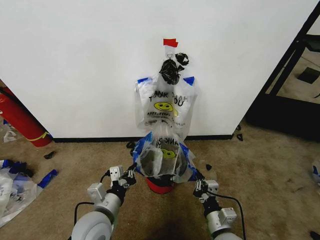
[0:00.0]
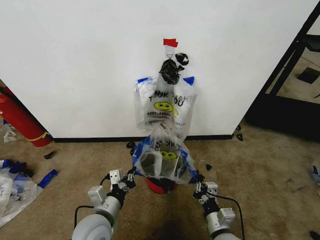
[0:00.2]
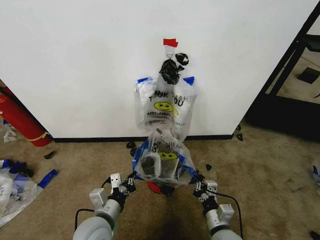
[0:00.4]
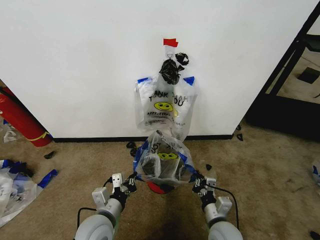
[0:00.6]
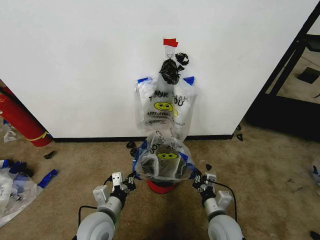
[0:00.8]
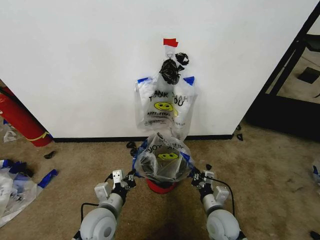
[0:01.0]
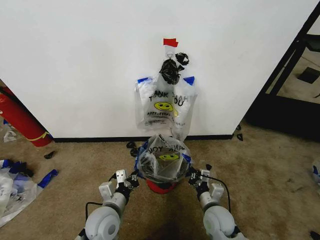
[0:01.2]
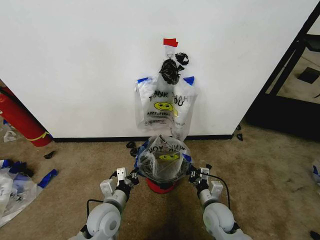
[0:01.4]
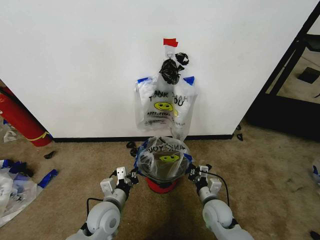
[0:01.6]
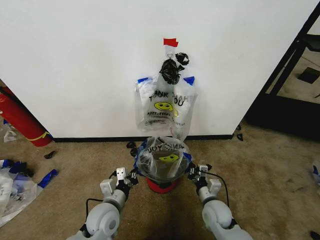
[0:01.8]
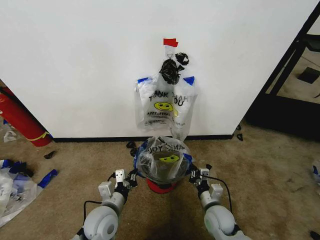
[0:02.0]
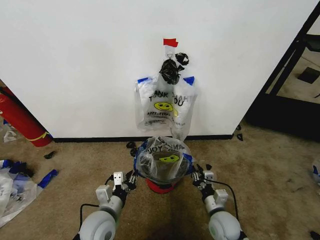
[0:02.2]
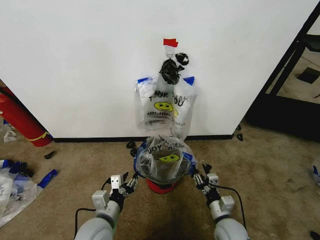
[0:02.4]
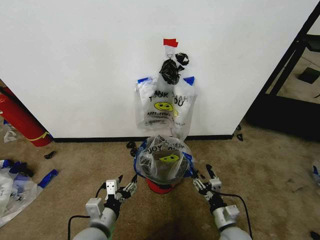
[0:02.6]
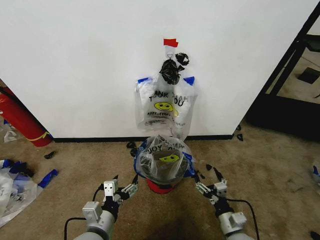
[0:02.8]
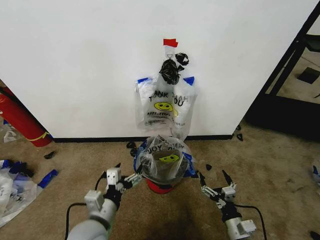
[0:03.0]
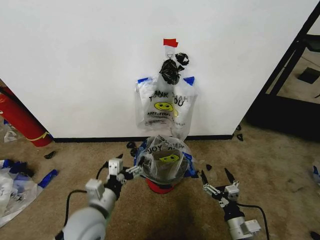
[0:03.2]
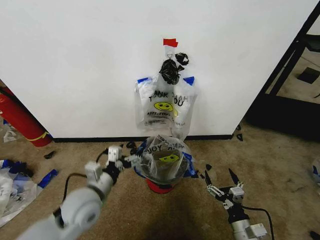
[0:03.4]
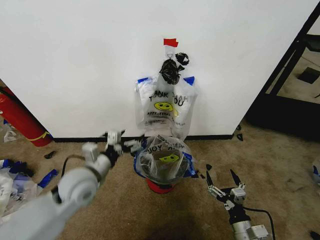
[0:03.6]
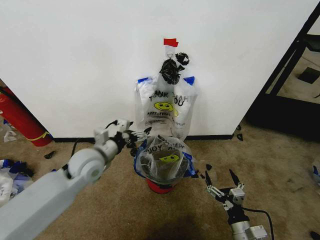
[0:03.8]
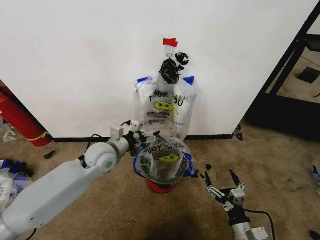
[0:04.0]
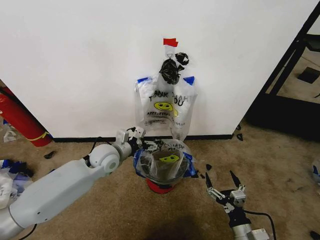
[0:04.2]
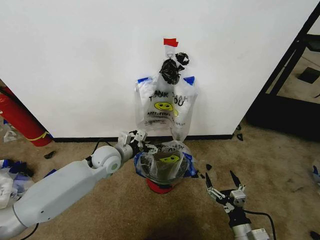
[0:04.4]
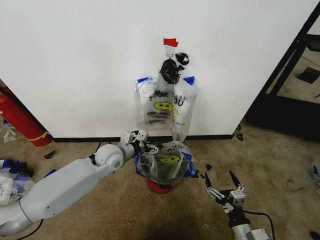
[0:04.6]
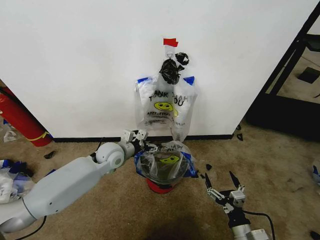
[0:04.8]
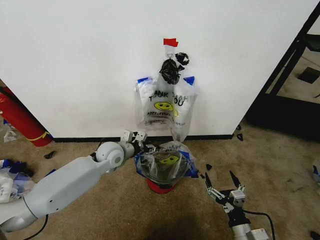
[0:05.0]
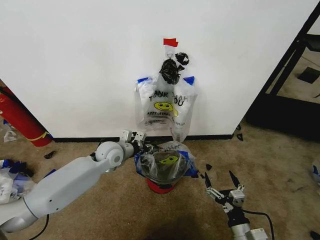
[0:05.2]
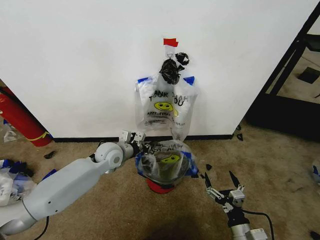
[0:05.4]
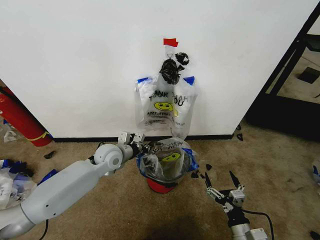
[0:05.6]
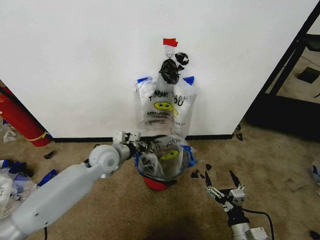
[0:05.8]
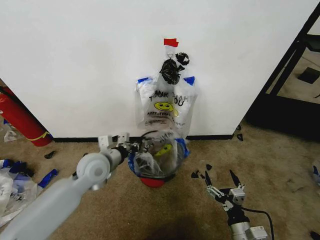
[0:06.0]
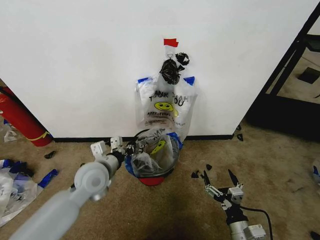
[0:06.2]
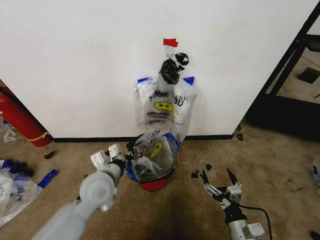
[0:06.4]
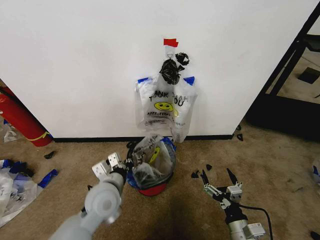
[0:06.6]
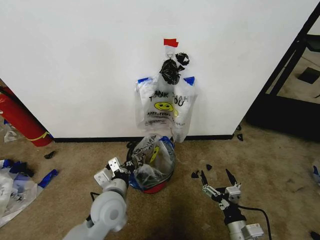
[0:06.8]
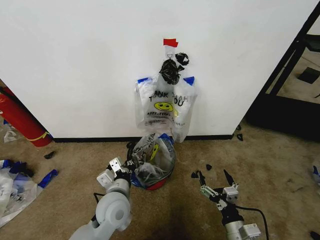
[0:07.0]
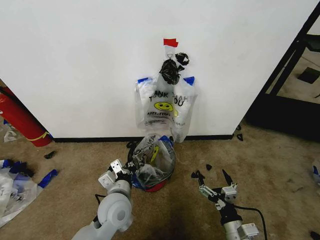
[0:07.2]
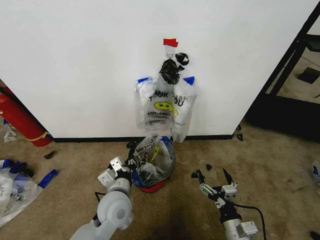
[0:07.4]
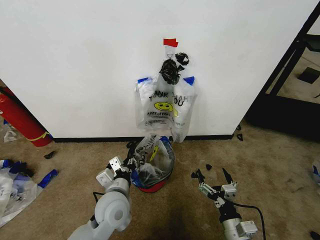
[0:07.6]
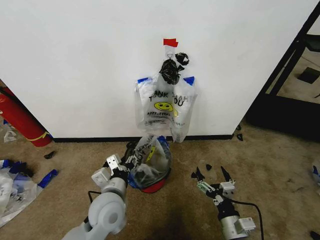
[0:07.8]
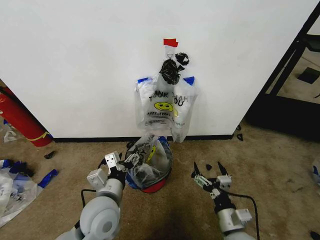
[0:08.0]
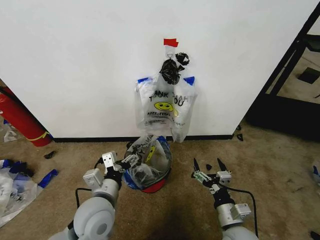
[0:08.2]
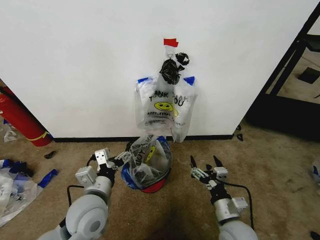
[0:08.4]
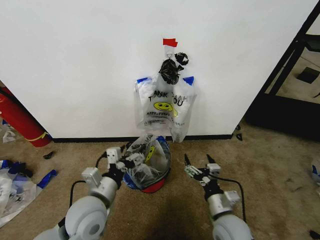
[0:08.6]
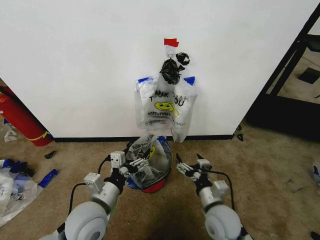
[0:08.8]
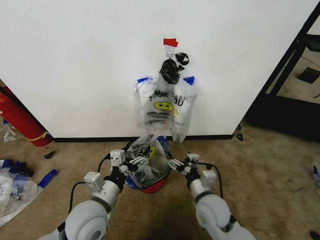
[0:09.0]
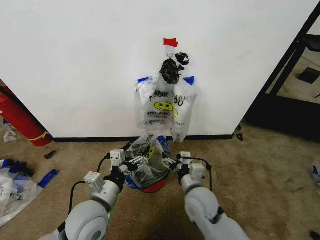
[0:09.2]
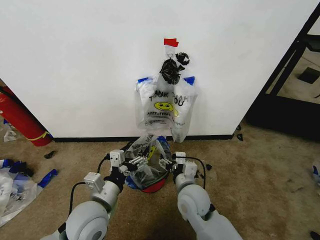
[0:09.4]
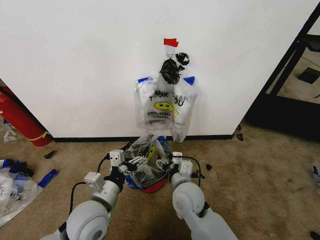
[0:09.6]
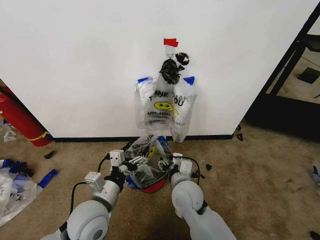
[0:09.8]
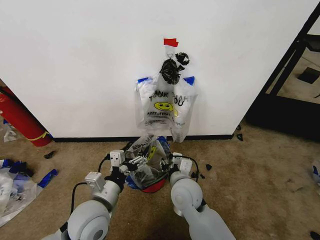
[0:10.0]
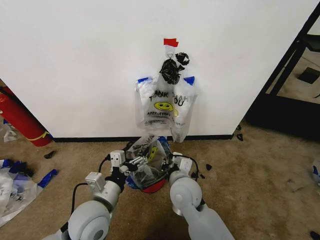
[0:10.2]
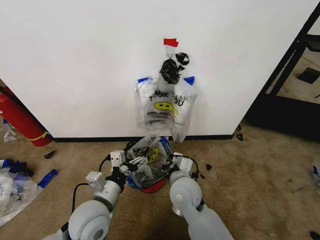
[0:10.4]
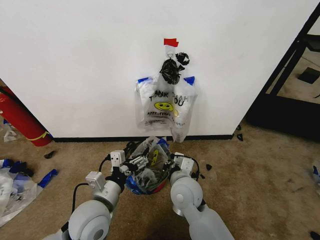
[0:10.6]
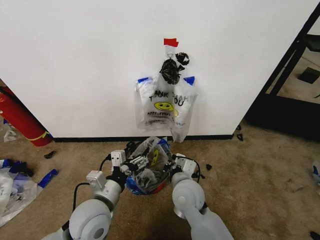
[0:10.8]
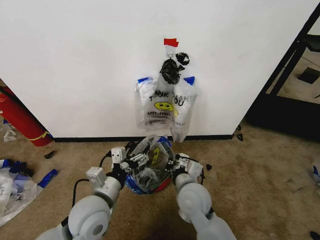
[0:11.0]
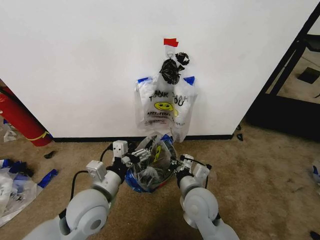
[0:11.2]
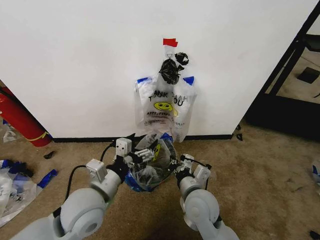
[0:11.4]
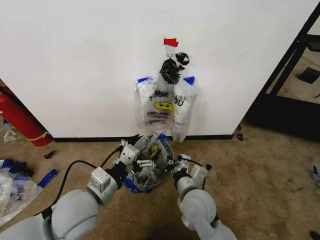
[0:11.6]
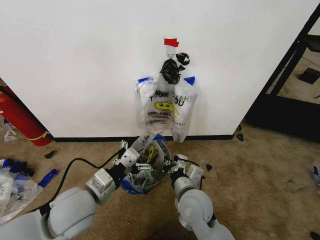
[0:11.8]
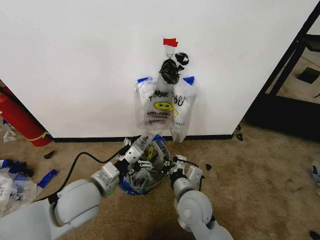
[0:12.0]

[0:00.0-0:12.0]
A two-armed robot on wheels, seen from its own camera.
Task of the whole recording: Pick up the garbage bag from the wall and place it over the trash bin.
0:00.0 to 0:01.6: The right gripper travels forward by approximately 10 cm. Meanwhile the left gripper is displaced downward by roughly 5 cm.
0:01.6 to 0:03.0: The left gripper travels backward and upward by about 10 cm, and opens up. Meanwhile the right gripper goes roughly 15 cm backward and to the right, and opens up.
0:03.0 to 0:04.4: The left gripper goes some 25 cm forward.
0:04.4 to 0:06.0: The left gripper changes place by approximately 5 cm, and closes.
0:06.0 to 0:07.6: The left gripper shifts roughly 15 cm backward, to the right and downward, and opens its fingers.
0:07.6 to 0:09.0: The left gripper moves about 5 cm, and opens; the right gripper is displaced forward, to the left and upward by about 15 cm.
0:09.0 to 0:10.4: The right gripper travels to the left by roughly 10 cm, and closes up.
0:10.4 to 0:12.0: The left gripper changes place by about 5 cm.

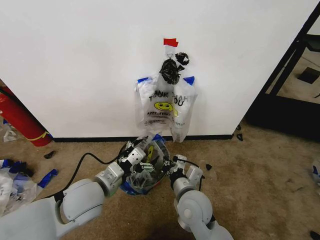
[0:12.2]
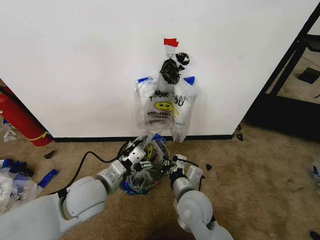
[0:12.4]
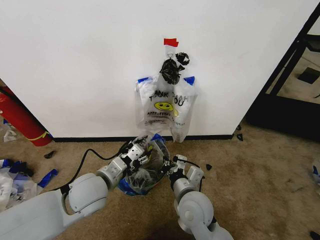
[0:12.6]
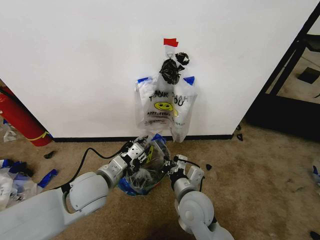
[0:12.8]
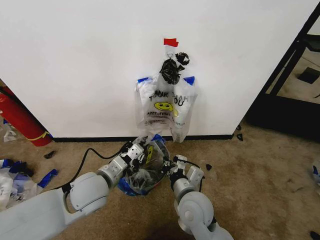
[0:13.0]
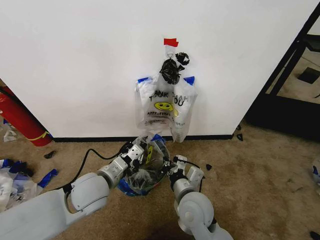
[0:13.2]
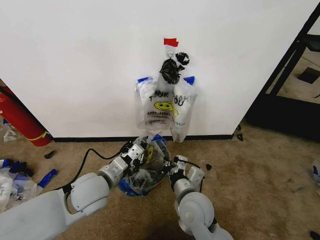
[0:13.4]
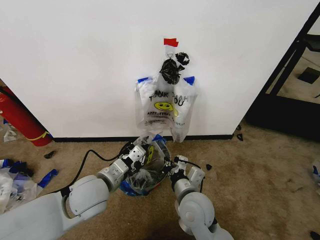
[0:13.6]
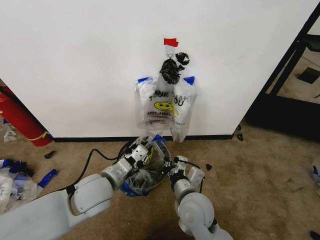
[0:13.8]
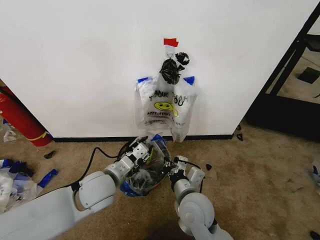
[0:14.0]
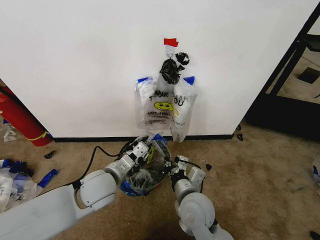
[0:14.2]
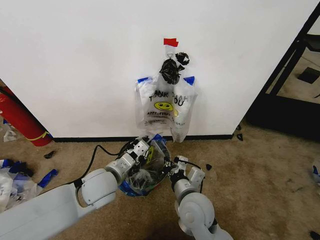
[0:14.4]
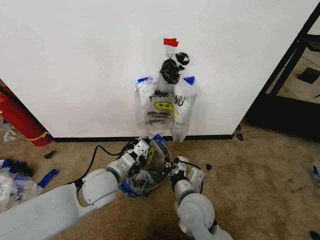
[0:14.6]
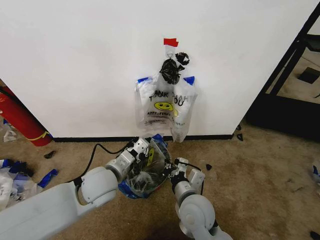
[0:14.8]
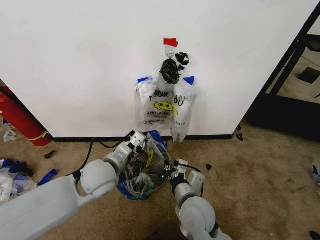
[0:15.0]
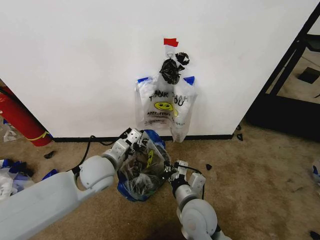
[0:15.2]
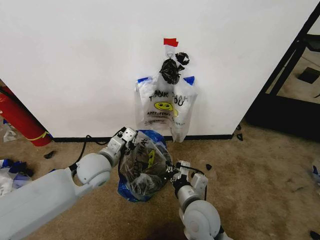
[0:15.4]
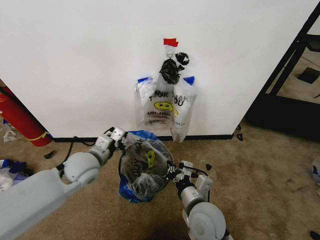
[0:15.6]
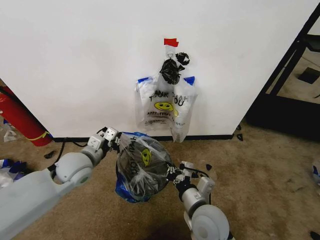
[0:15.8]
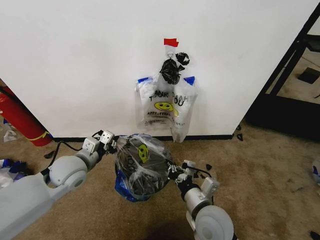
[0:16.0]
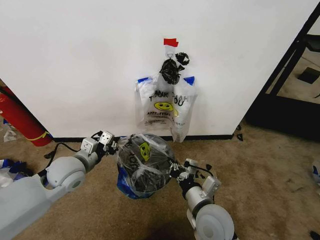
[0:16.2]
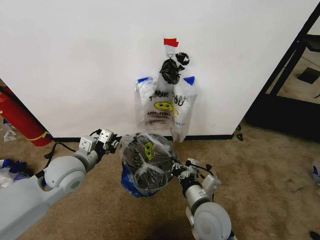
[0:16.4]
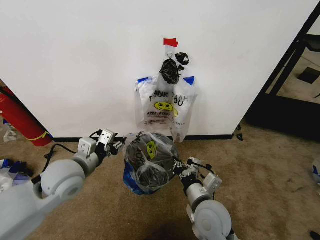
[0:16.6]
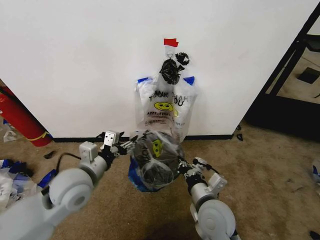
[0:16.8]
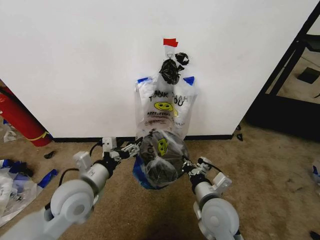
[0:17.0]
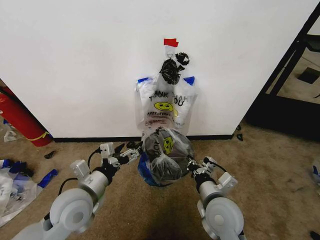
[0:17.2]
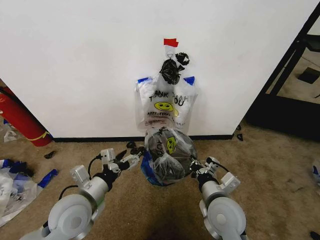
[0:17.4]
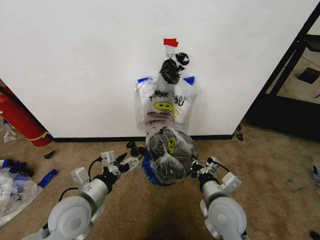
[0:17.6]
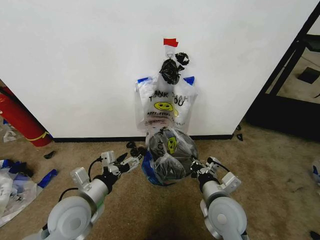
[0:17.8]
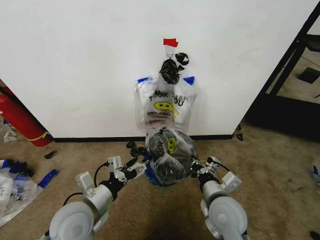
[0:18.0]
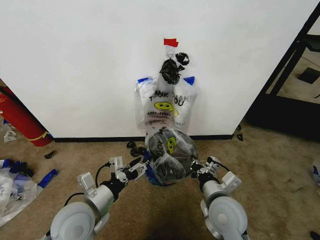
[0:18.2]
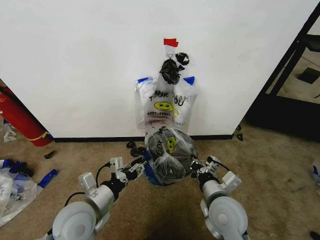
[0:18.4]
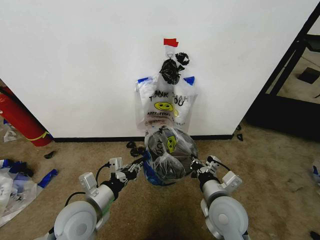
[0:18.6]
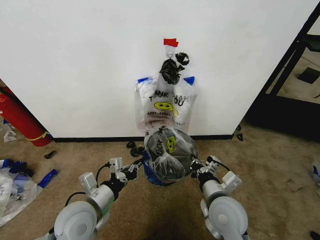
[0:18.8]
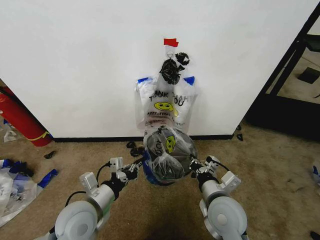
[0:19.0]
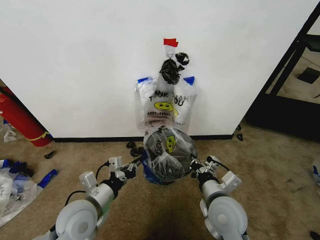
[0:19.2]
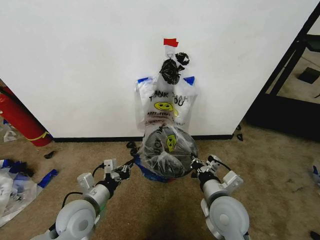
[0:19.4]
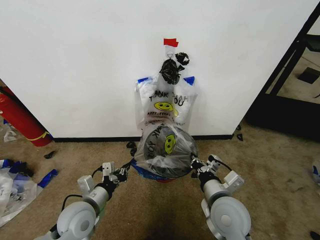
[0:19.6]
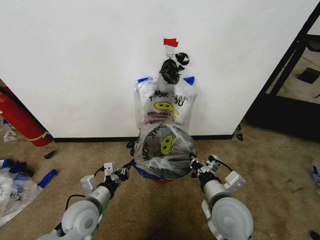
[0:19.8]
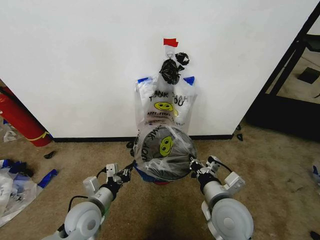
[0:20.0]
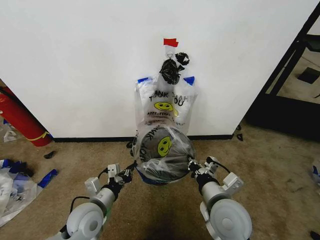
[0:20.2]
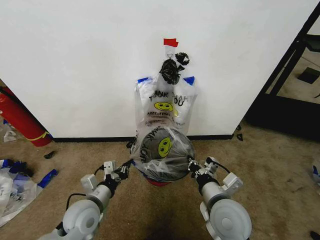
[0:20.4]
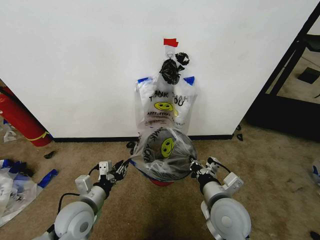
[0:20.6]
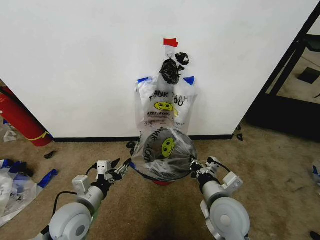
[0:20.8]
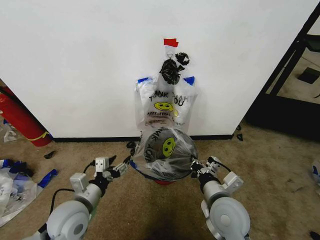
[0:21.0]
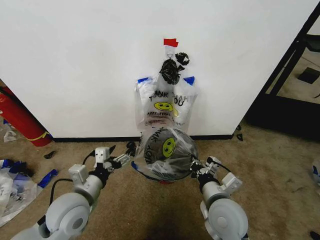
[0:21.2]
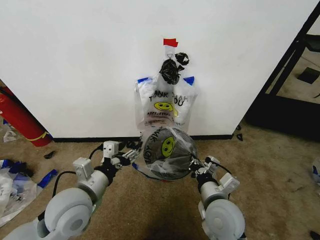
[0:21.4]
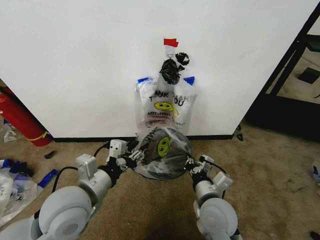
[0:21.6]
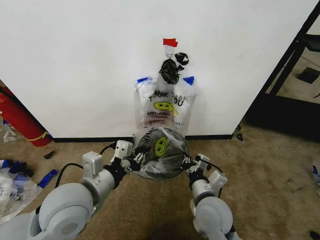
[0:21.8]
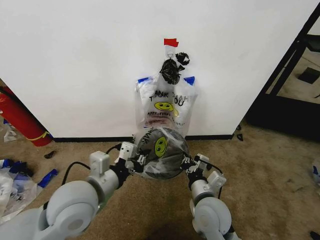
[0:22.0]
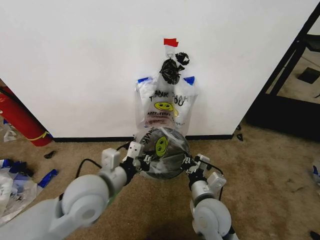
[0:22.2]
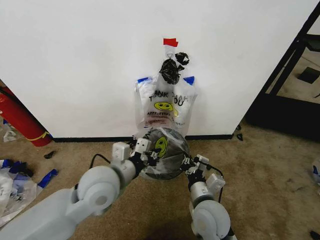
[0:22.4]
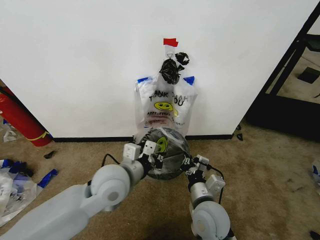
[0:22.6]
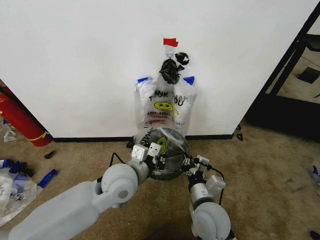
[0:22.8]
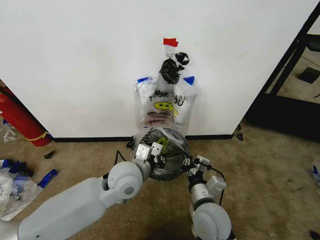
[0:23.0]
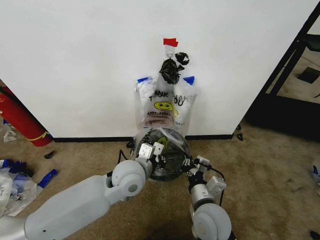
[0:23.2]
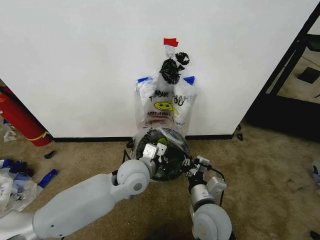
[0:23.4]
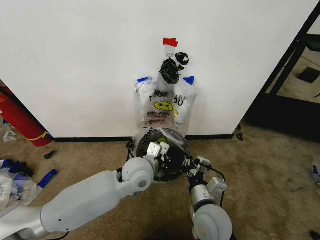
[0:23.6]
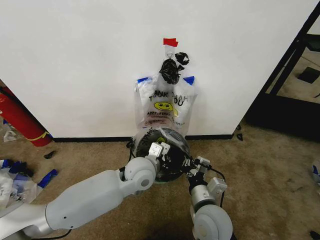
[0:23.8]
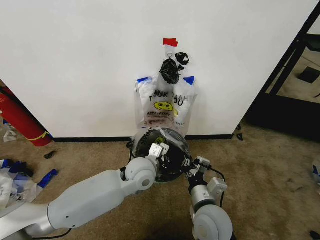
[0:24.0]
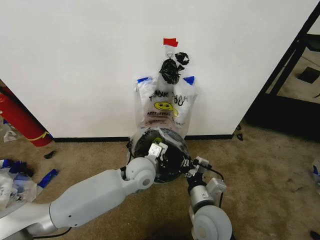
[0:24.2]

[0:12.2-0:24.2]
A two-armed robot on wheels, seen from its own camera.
Task of the whole recording: Pick up the garbage bag from the wall and place it over the trash bin.
0:12.2 to 0:13.8: The left gripper closes.
0:13.8 to 0:15.2: The left gripper goes approximately 5 cm forward.
0:15.2 to 0:16.6: The left gripper shifts about 5 cm to the left, and opens its fingers.
0:16.6 to 0:18.2: The left gripper moves backward and downward, about 10 cm, and opens, then closes once more.
0:18.2 to 0:19.8: The left gripper goes some 5 cm downward, and closes.
0:19.8 to 0:21.2: The left gripper travels upward by about 5 cm, and opens its fingers.
0:21.2 to 0:22.6: The left gripper goes some 15 cm to the right, forward and upward, and closes.
0:22.6 to 0:24.2: The left gripper heads downward, forward and to the right, covering roughly 10 cm.
